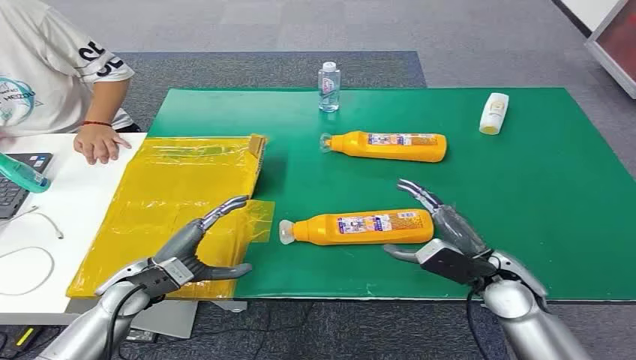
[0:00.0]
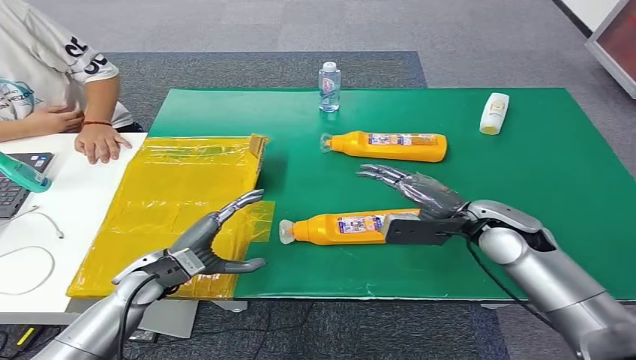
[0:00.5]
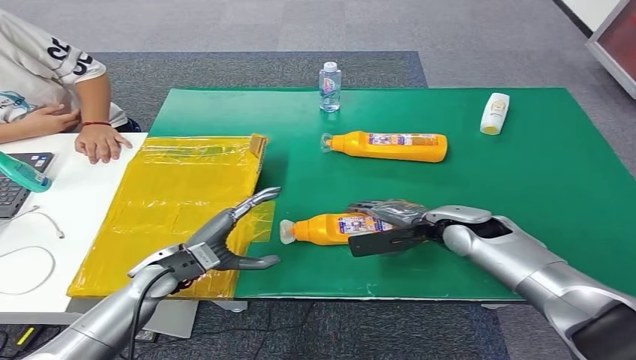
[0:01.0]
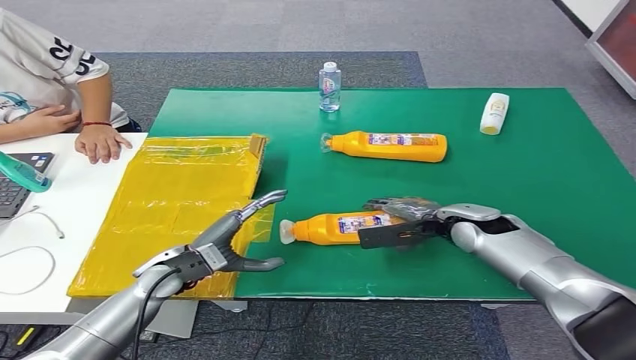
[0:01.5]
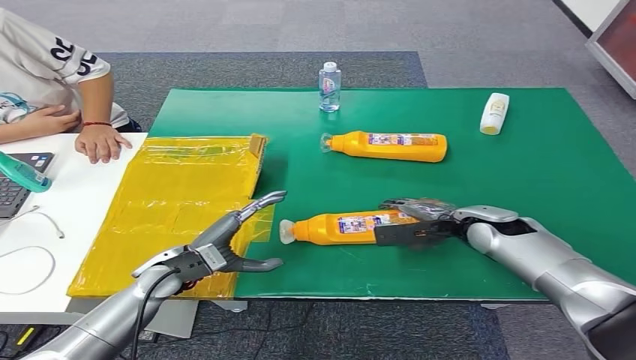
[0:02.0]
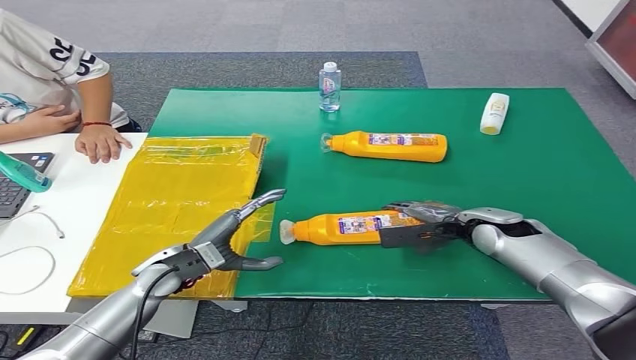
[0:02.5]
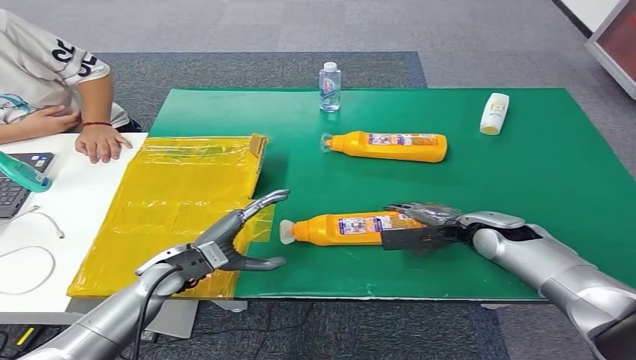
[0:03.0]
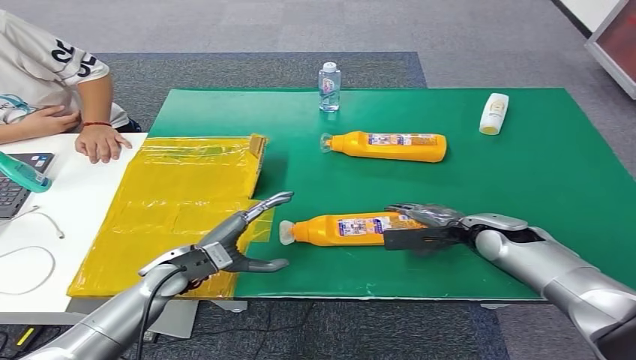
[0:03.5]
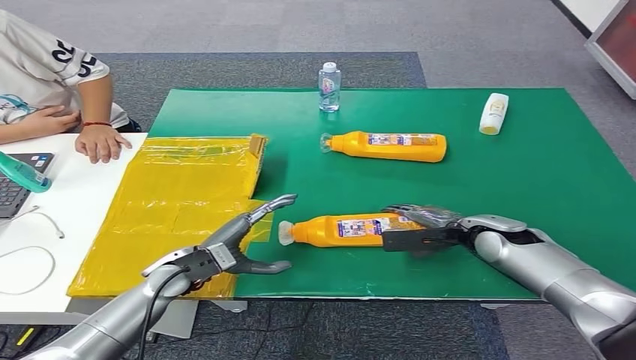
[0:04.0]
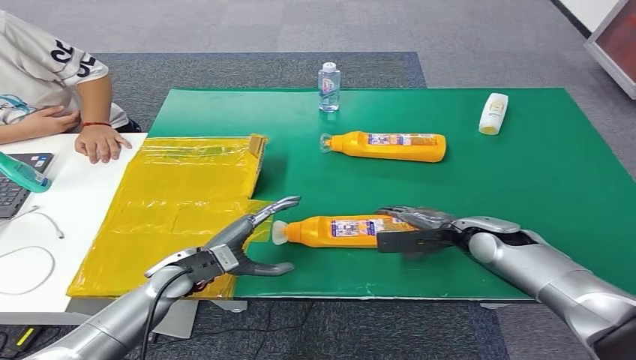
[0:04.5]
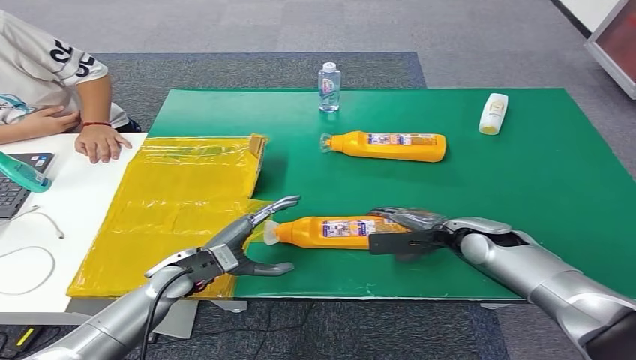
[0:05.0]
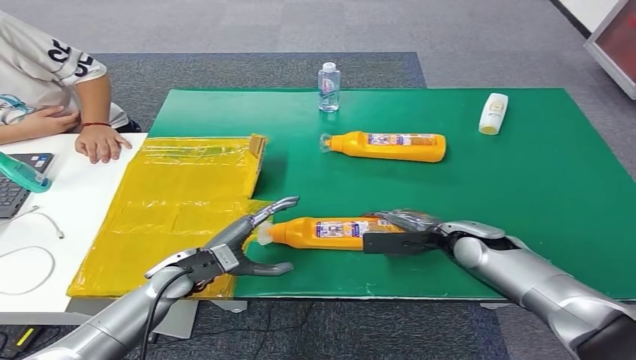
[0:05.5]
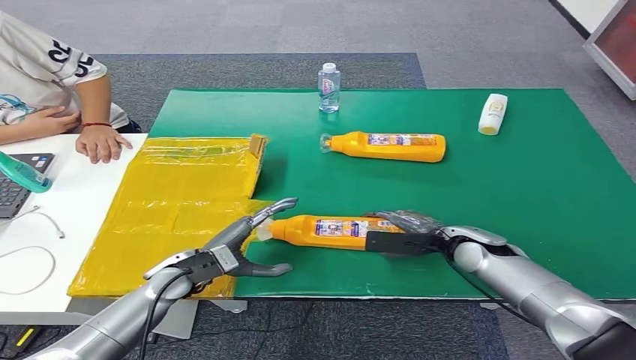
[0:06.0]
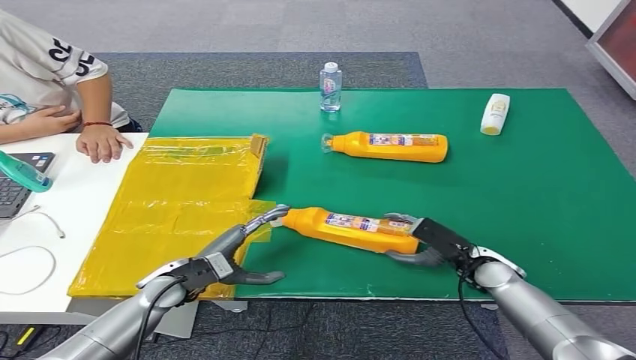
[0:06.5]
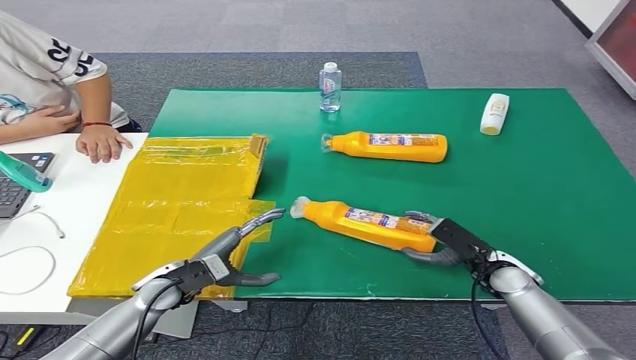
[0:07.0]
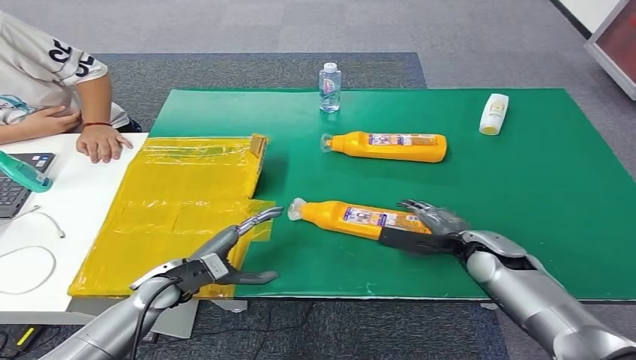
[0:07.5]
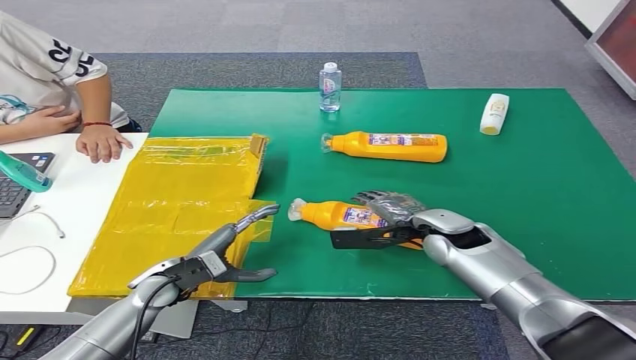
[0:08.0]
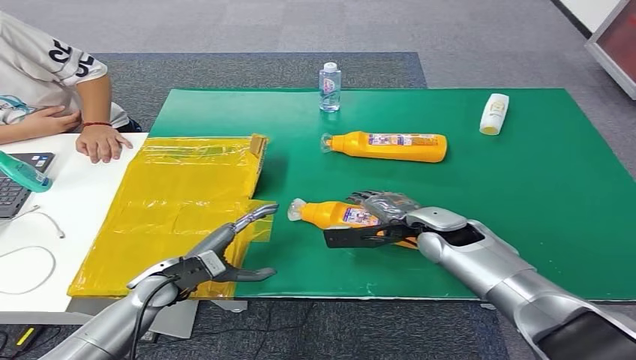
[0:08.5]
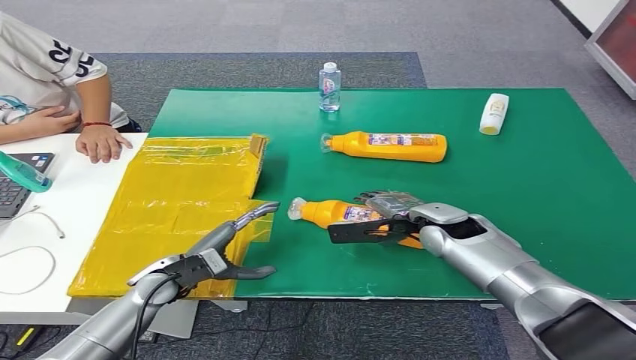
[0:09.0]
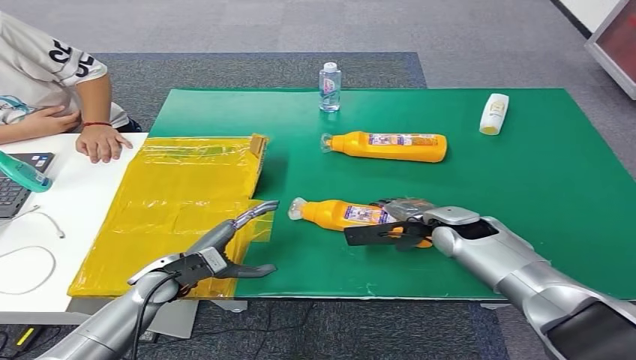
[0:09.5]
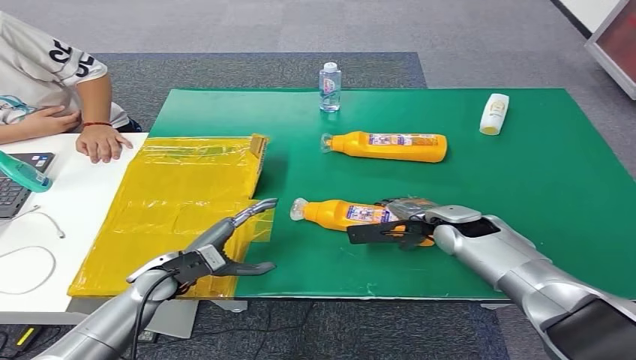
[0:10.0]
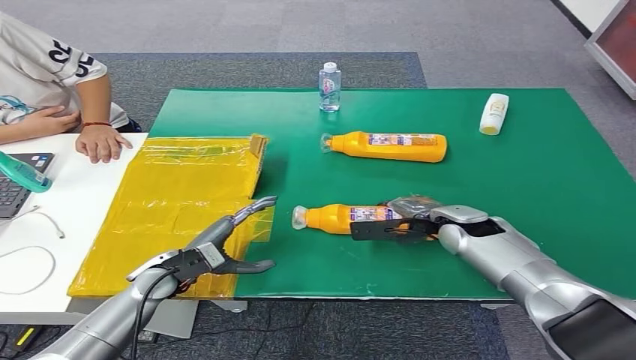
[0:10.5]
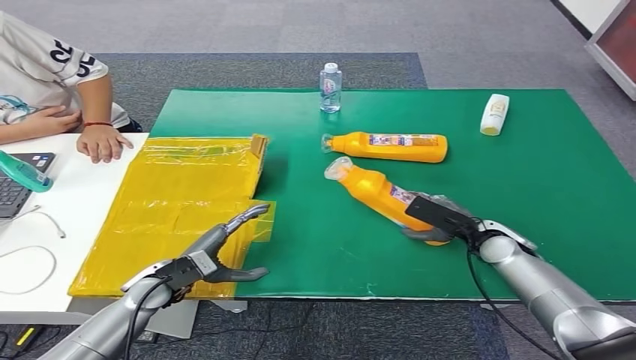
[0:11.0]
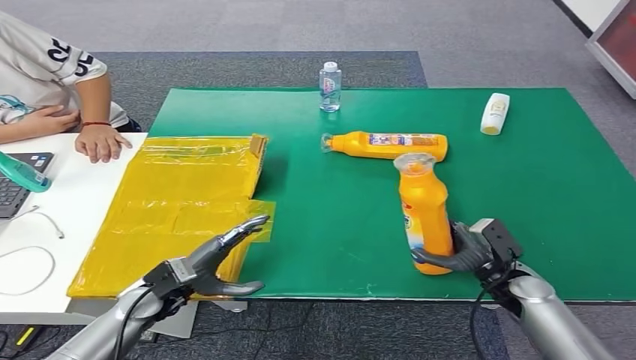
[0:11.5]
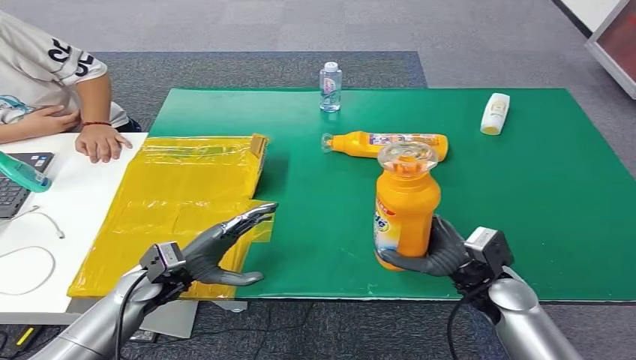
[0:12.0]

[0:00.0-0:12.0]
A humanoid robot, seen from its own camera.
Step, 0:00.0 to 0:11.5: Pick up the bottle from the table.
0:02.0 to 0:06.0: The hands move only a little.
0:06.0 to 0:08.0: The right hand is displaced to the left by about 5 cm.
0:08.0 to 0:10.0: The hands stay close to where they were, moving slightly.
0:10.0 to 0:12.0: The right hand moves backward, roughly 10 cm.

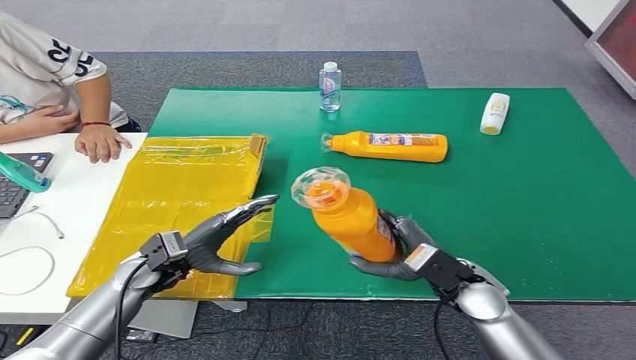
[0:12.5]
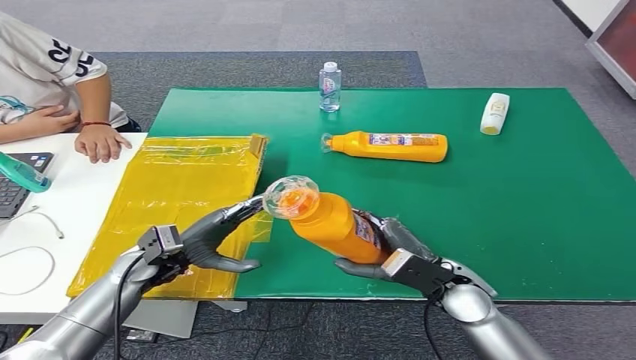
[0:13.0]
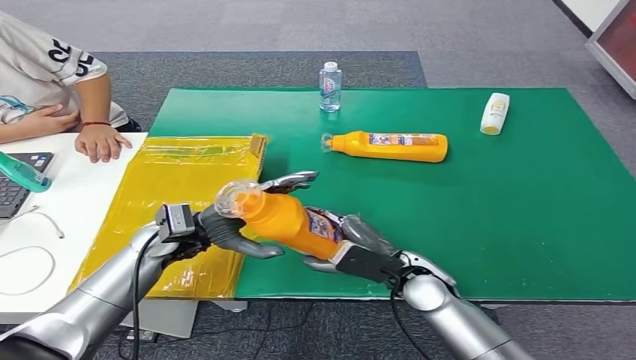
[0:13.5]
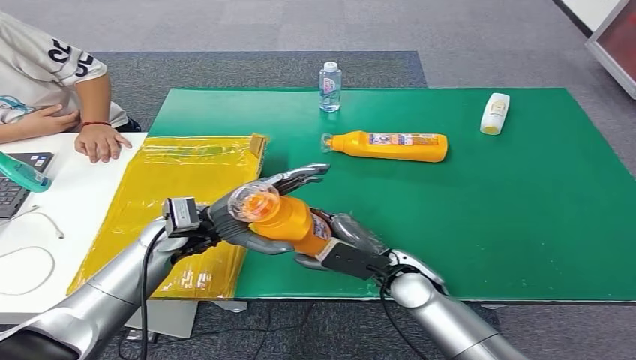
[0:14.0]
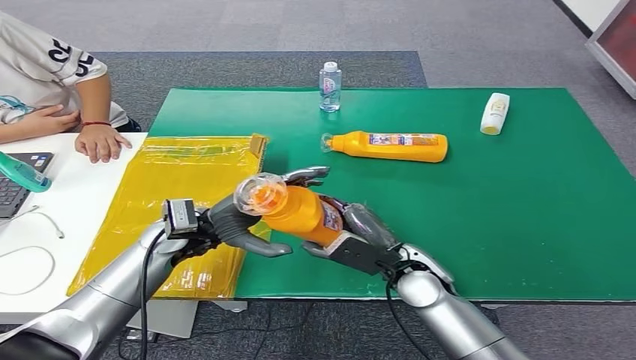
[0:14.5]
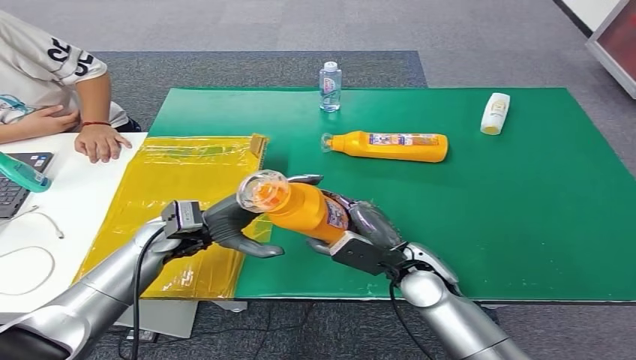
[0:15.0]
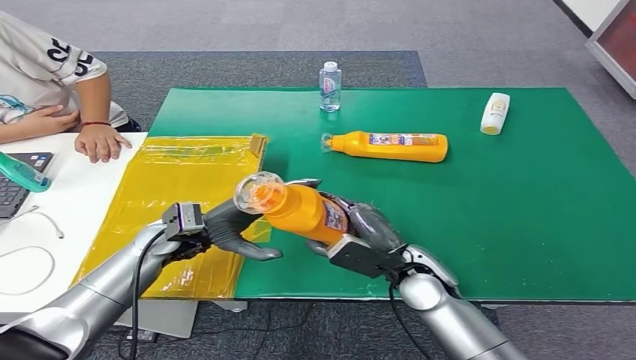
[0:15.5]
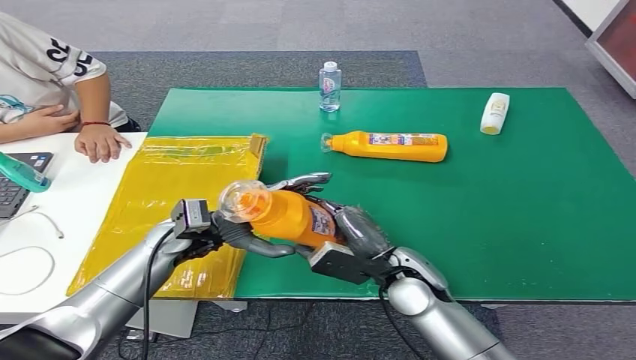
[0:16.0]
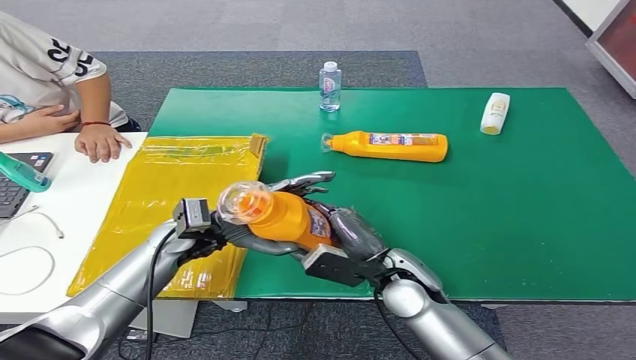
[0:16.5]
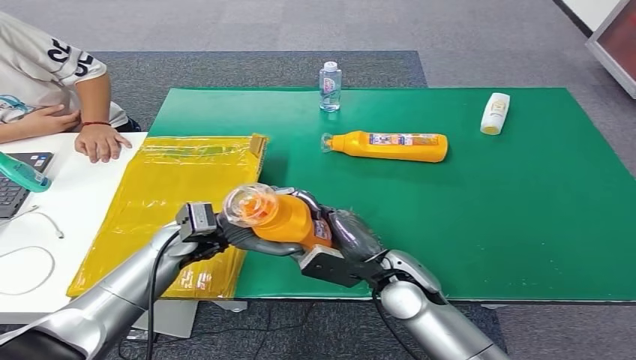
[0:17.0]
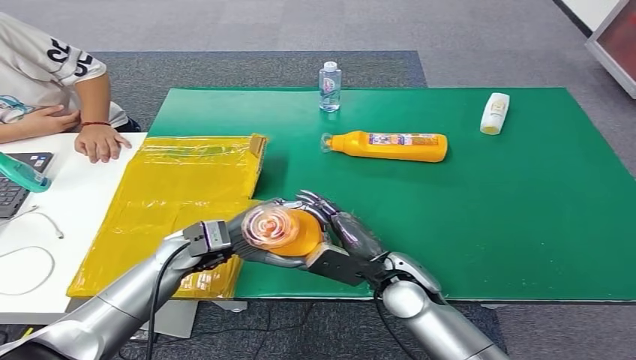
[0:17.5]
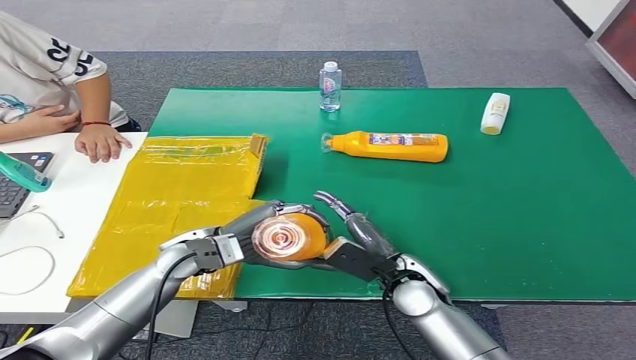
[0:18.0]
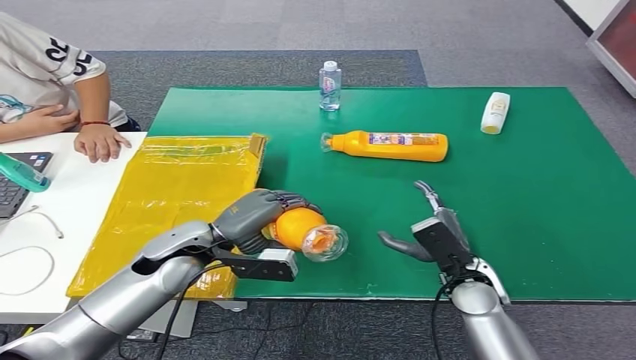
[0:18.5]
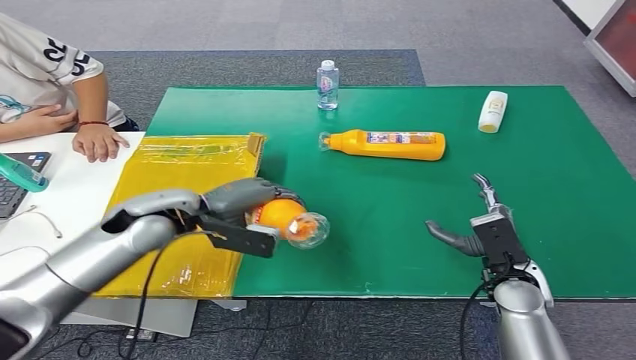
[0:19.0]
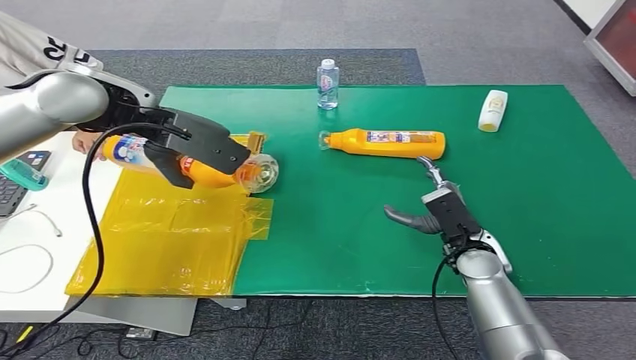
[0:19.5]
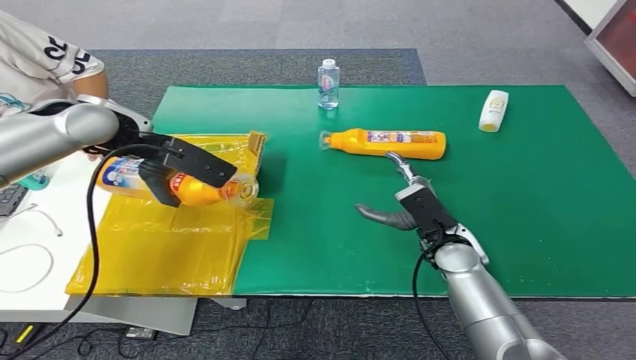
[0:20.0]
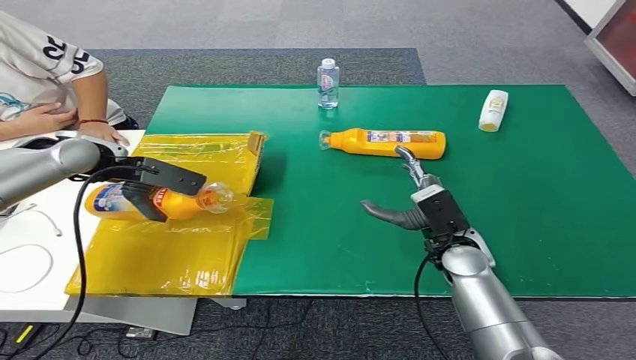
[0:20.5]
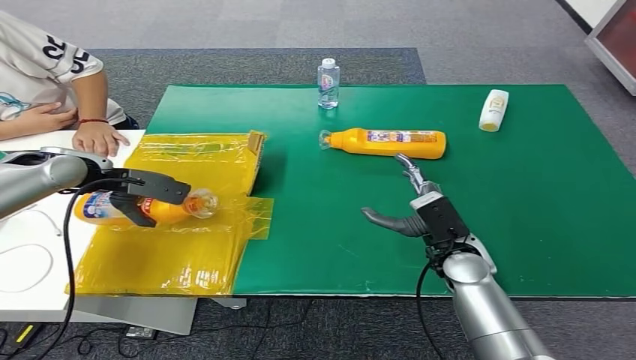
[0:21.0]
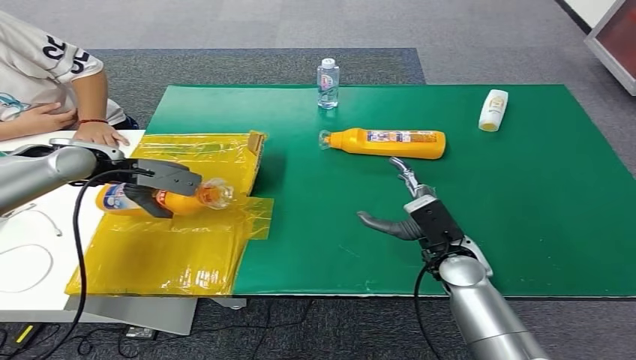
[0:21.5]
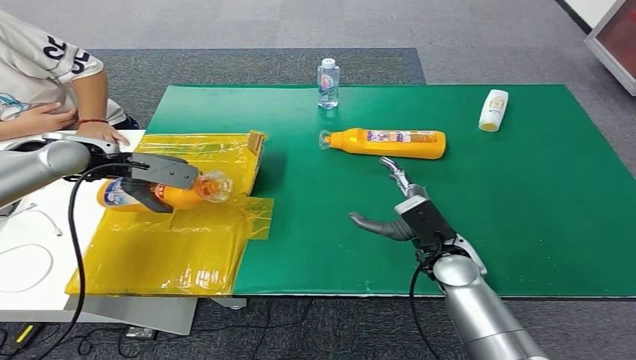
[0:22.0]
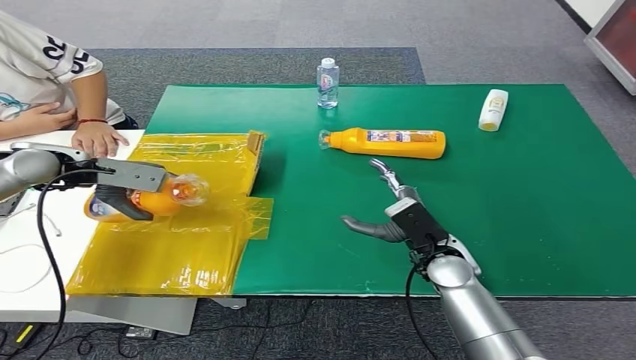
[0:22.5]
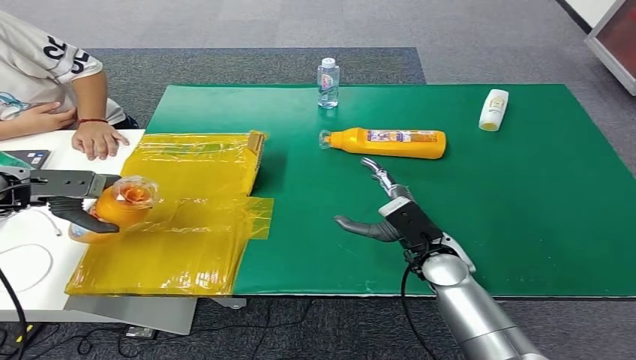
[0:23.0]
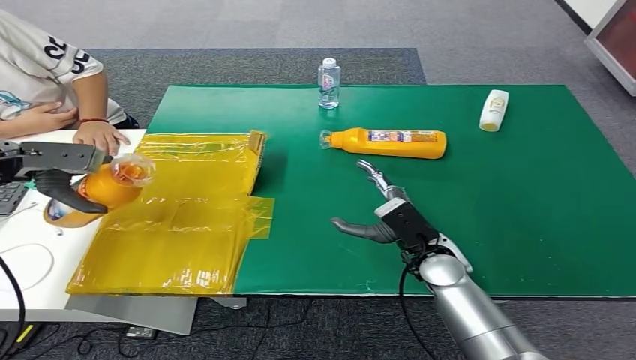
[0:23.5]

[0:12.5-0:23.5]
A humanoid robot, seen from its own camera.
0:12.5 to 0:14.5: The right hand shifts approximately 5 cm to the left, while the left hand is displaced upward and to the right by roughly 10 cm.
0:14.5 to 0:18.0: The hands move only a little.
0:20.0 to 0:21.5: The left hand is displaced downward and to the left by roughly 10 cm.
0:21.5 to 0:23.5: The left hand shifts approximately 10 cm to the left.
